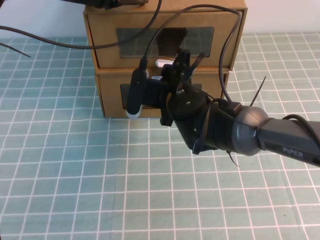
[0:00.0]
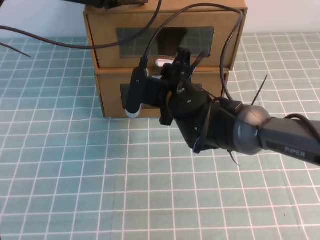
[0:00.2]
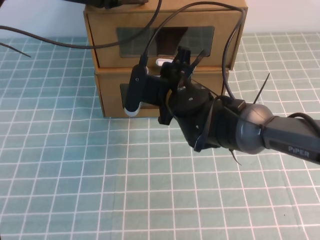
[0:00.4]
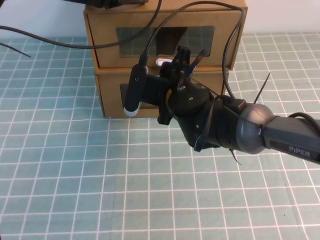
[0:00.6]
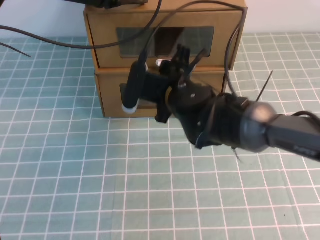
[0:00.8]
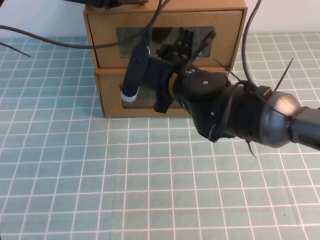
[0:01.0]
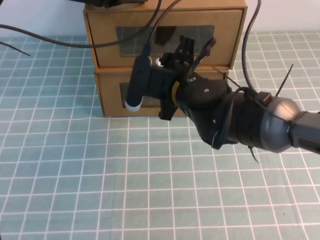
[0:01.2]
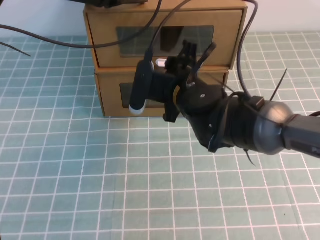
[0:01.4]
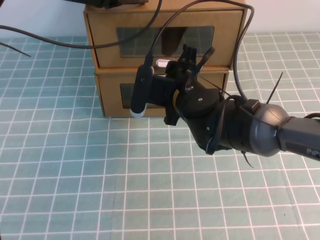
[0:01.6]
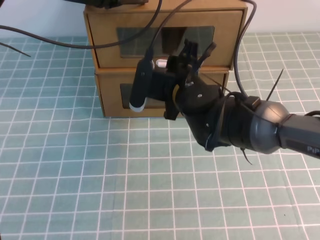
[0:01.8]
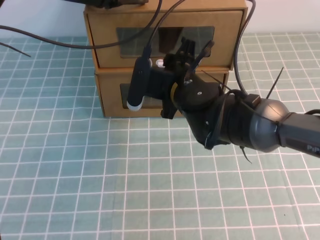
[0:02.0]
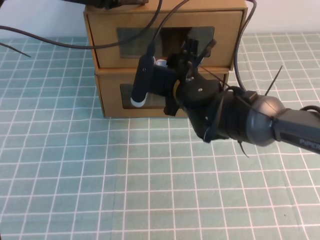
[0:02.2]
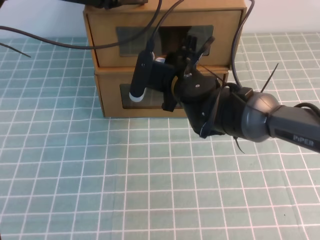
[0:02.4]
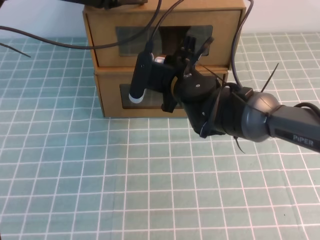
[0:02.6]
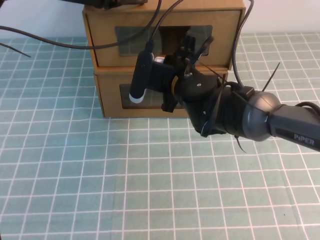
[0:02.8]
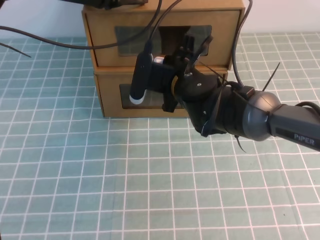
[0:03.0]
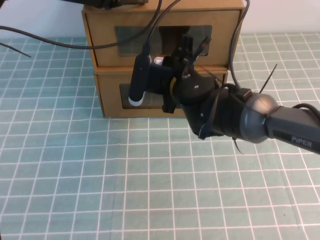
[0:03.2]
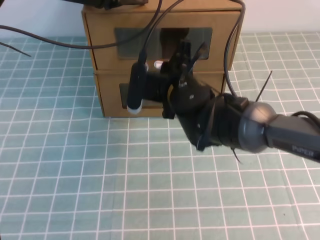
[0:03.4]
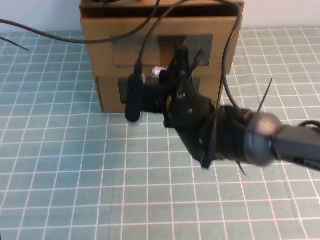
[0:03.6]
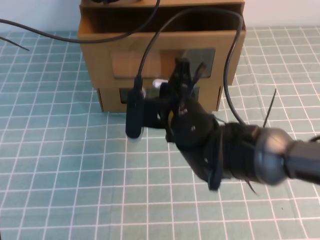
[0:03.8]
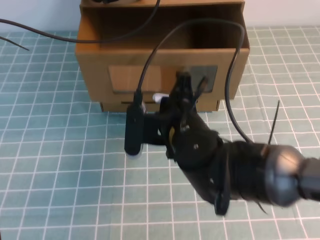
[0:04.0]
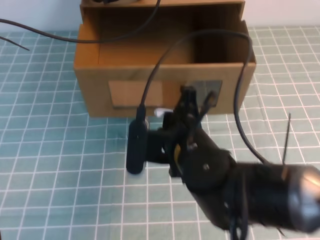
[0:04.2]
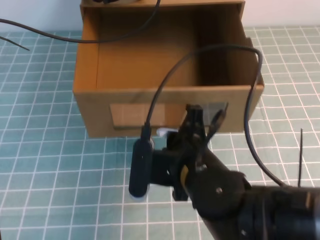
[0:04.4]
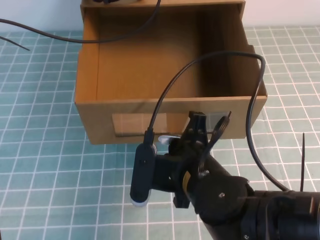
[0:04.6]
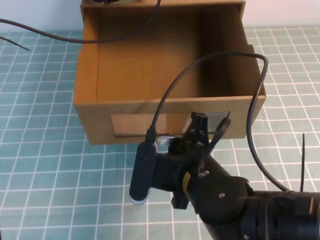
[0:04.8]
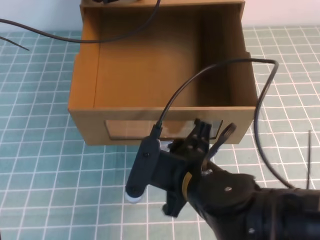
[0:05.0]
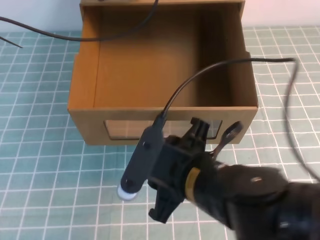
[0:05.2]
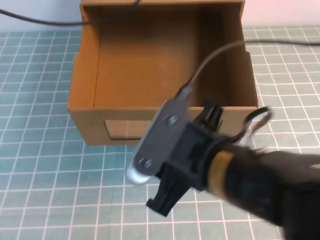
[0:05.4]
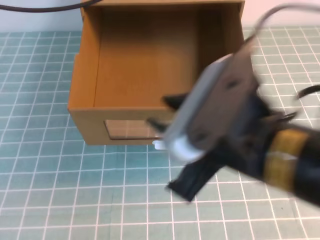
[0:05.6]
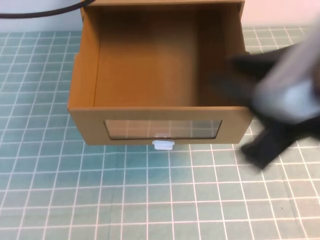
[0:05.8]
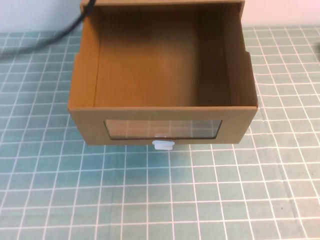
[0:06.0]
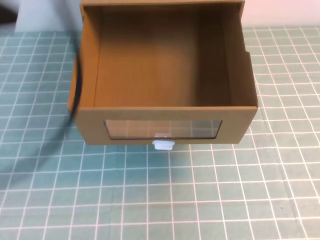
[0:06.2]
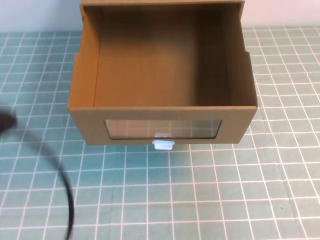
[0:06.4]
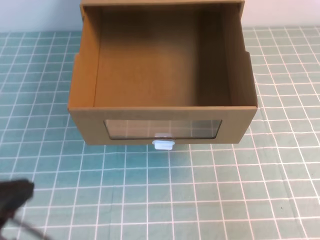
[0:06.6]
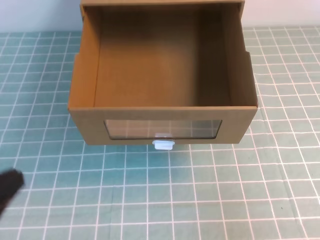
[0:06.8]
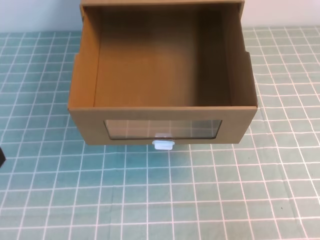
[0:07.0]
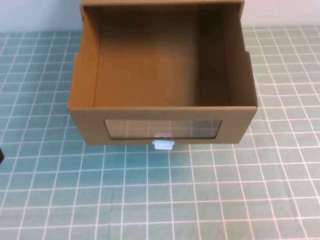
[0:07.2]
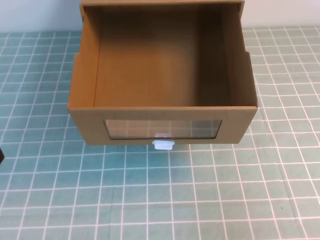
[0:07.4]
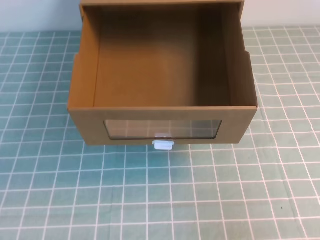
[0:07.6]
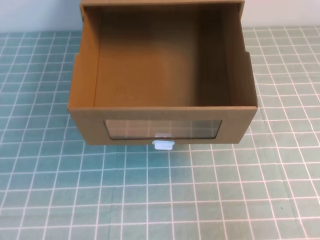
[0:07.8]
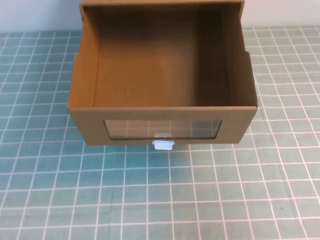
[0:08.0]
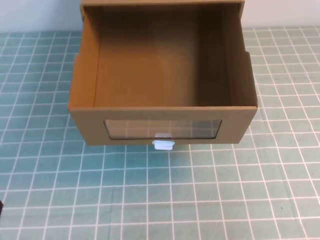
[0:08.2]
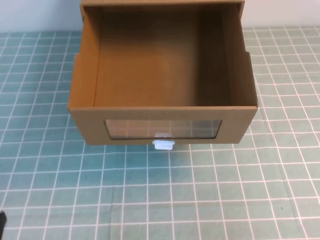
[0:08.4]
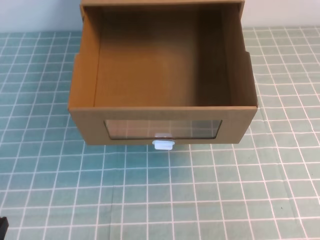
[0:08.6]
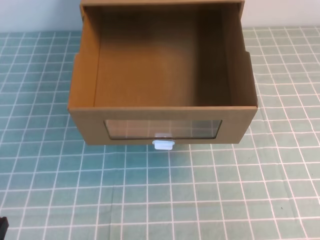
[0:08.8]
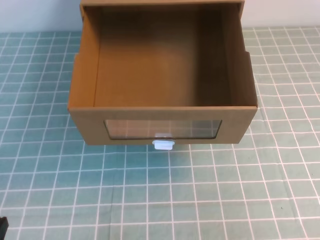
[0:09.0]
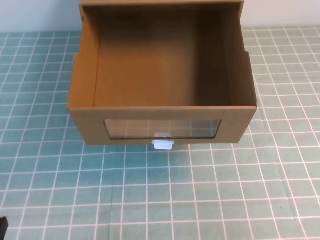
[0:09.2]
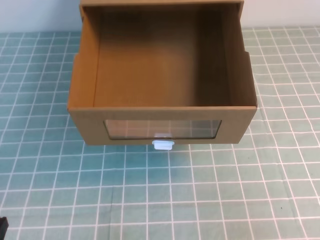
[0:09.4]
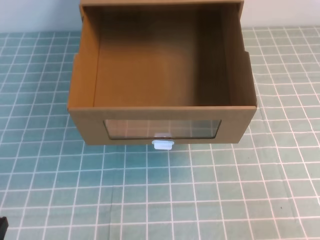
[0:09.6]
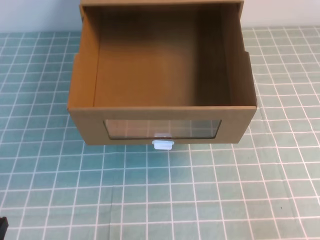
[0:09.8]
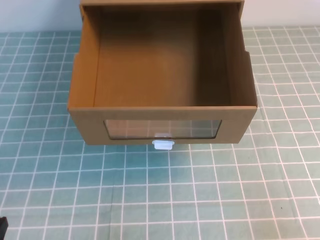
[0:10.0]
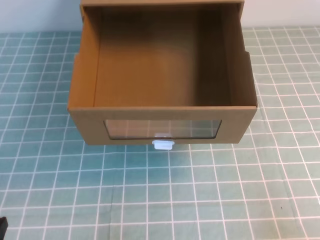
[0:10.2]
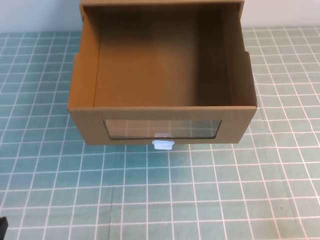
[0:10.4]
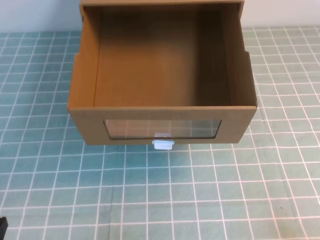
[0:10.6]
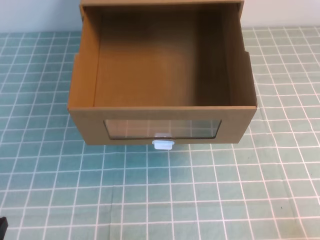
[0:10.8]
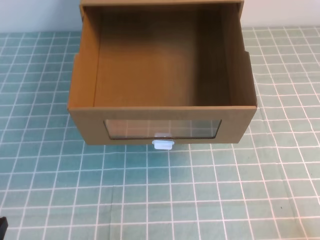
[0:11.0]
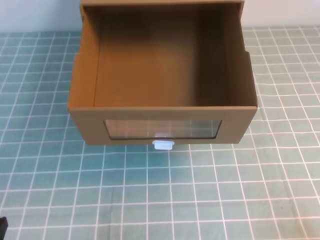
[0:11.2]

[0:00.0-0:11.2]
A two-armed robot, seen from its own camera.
Task of the whole recording: open the shoebox on the cyan tablecloth.
Step, 0:00.0 to 0:11.2: Open the shoe box.
0:00.0 to 0:01.6: There are only small adjustments of the grippers.
0:01.6 to 0:03.2: The right gripper closes up.
0:03.2 to 0:04.8: The right gripper heads backward, covering approximately 20 cm.
0:04.8 to 0:06.4: The right gripper moves to the right, upward and backward, about 30 cm, and opens, then closes again, while the left gripper shifts about 30 cm backward.
0:06.4 to 0:08.0: The left gripper shifts approximately 20 cm downward and backward.

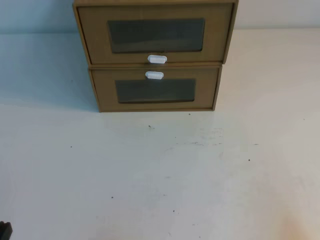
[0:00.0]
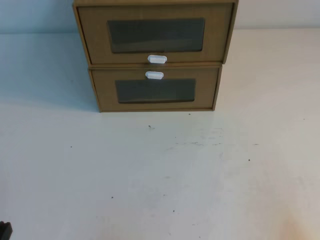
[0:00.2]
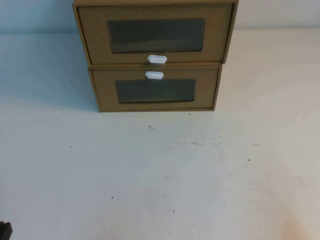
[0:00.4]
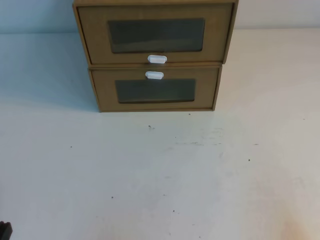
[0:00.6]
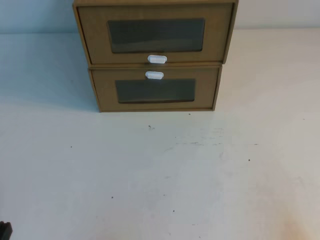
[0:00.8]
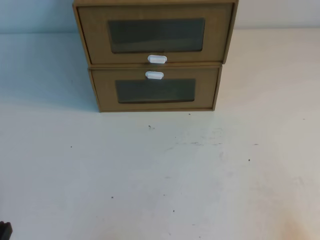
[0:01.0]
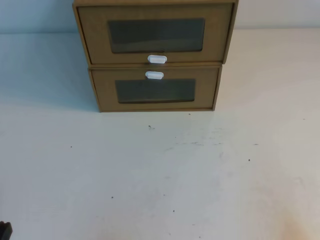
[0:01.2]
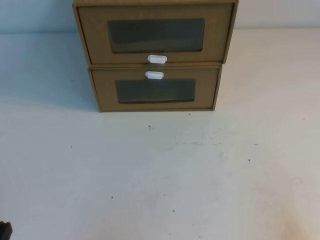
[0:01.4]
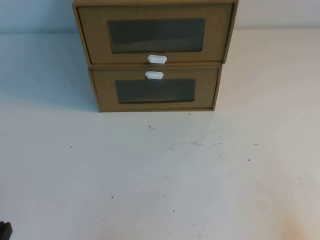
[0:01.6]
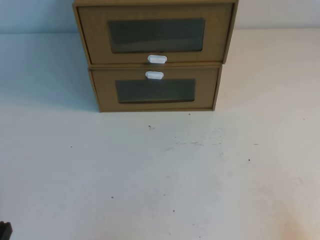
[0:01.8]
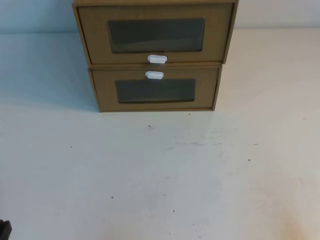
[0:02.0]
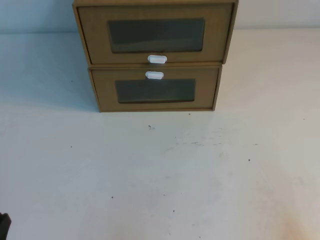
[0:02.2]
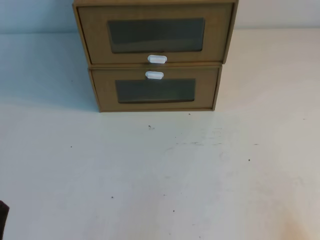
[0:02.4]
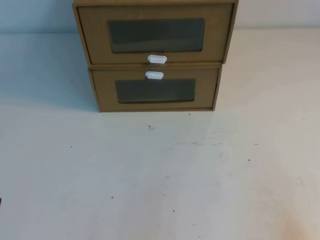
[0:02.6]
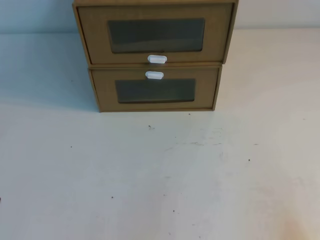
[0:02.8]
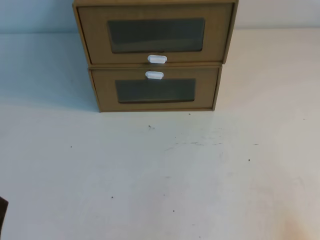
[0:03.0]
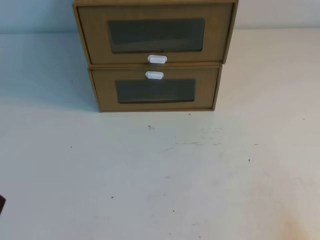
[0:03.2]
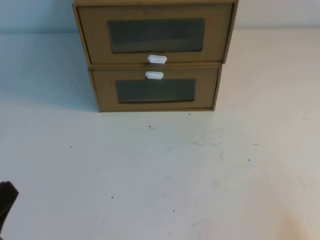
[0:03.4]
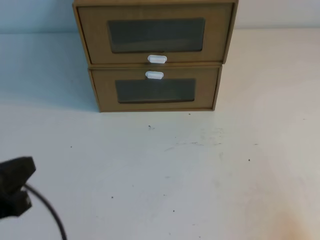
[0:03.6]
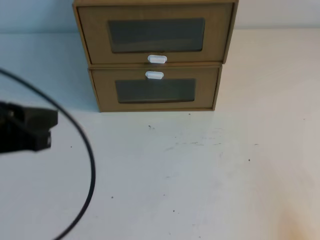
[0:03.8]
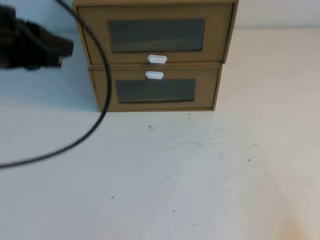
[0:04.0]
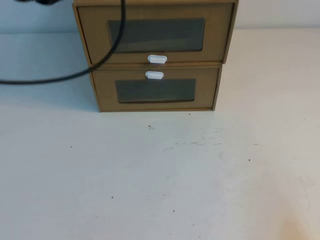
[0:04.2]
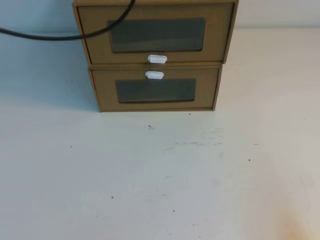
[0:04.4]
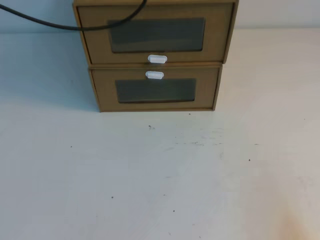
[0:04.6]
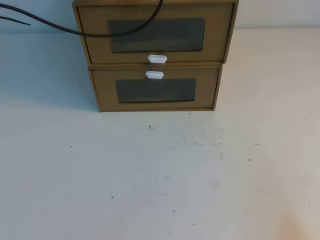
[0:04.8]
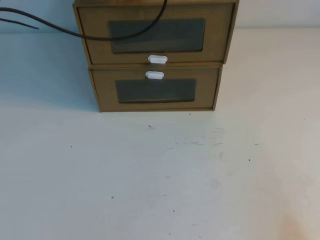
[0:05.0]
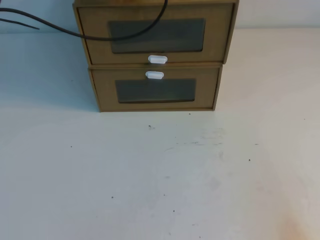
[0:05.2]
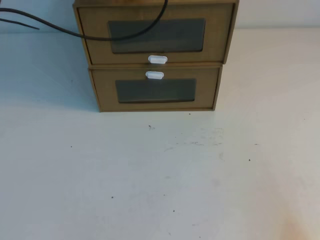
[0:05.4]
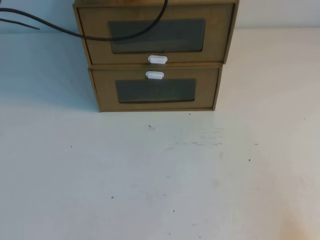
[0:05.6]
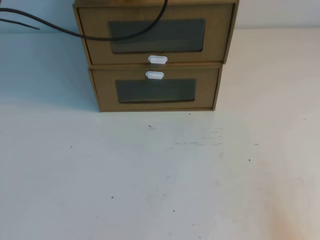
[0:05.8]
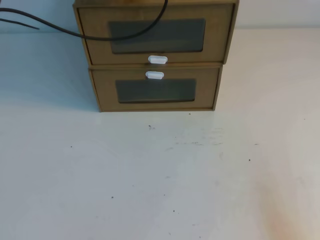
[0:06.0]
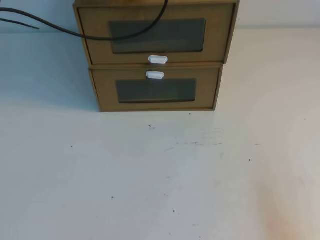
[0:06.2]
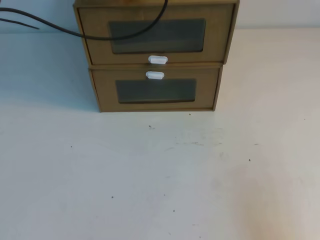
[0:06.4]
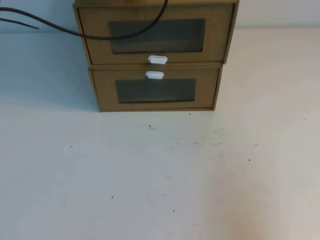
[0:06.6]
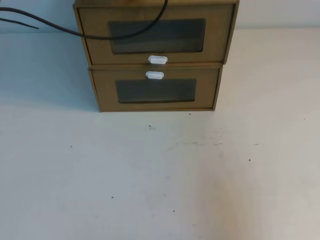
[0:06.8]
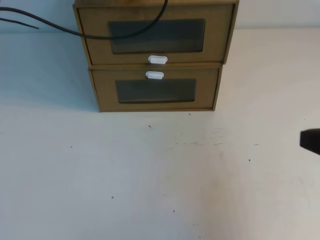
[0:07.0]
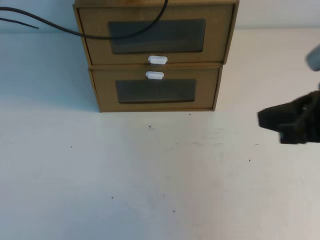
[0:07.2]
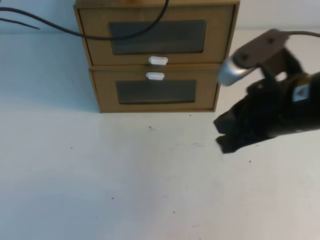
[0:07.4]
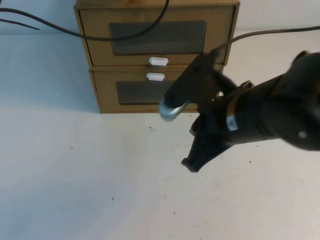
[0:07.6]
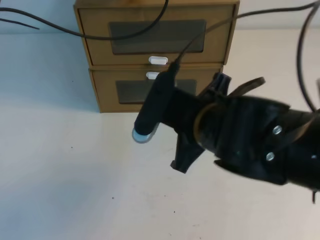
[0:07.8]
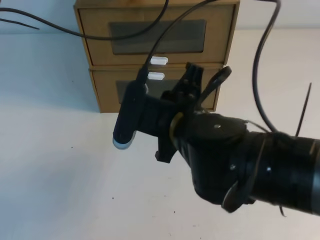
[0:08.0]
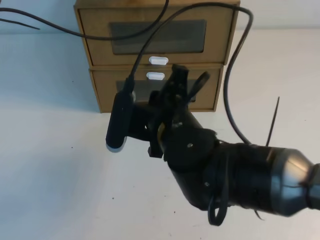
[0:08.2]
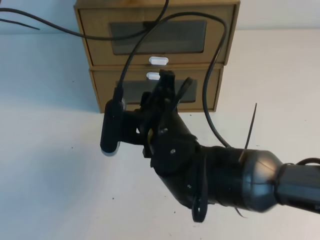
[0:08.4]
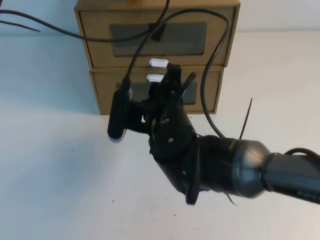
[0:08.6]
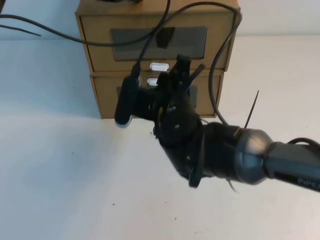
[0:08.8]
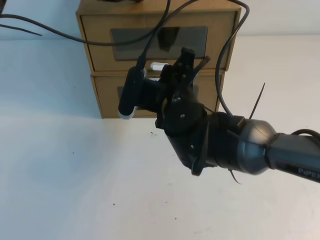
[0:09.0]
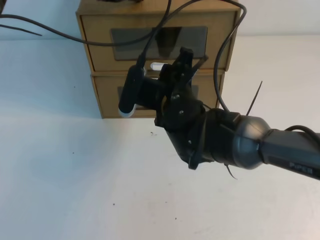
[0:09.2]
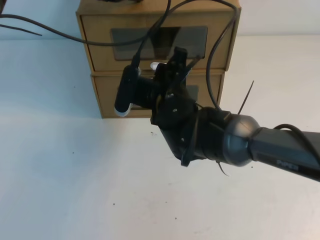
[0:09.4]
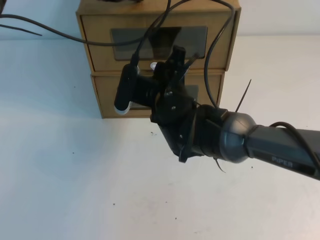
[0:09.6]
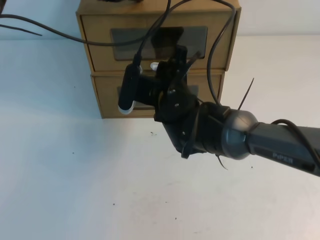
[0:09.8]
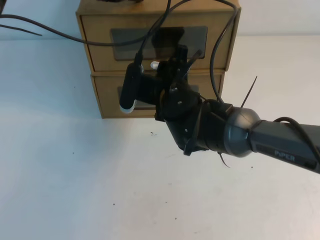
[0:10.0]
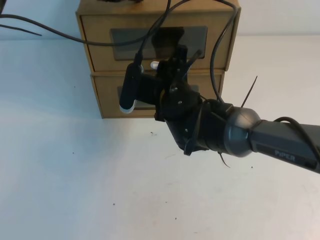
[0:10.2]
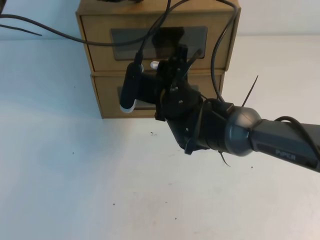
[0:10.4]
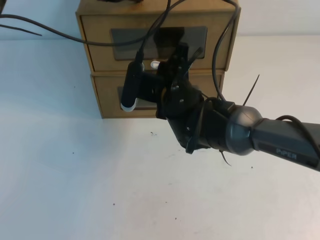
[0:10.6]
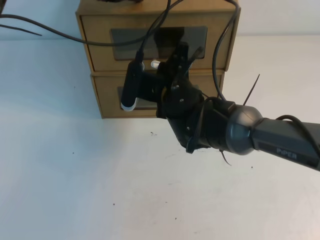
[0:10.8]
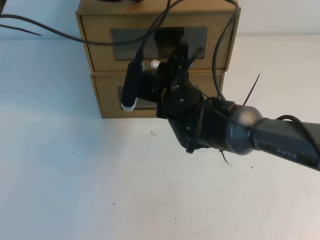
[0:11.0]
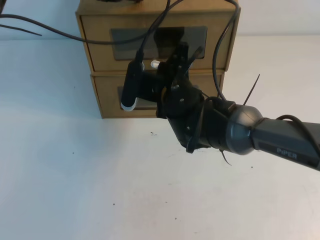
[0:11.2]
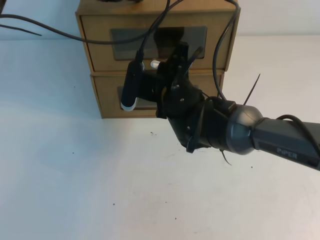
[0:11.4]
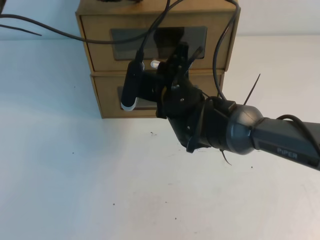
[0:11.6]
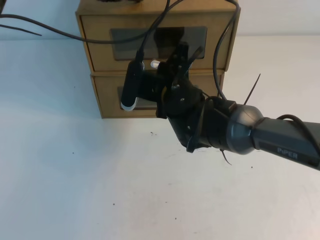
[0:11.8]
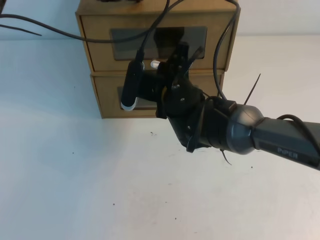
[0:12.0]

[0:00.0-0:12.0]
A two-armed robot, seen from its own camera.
Task of the whole recording: open the shoebox on the table.
0:00.0 to 0:01.6: Both grippers stay put.
0:03.0 to 0:04.4: The left gripper moves forward and upward, about 40 cm.
0:04.4 to 0:06.0: The left gripper goes approximately 10 cm forward and downward.
0:06.0 to 0:07.6: The right gripper moves to the left, forward and upward, about 30 cm.
0:07.6 to 0:09.0: The right gripper goes about 15 cm to the left, forward and downward, and opens its fingers.
0:09.0 to 0:10.4: The grippers stay close to where they were, moving slightly.
0:10.4 to 0:12.0: The right gripper closes its fingers.
